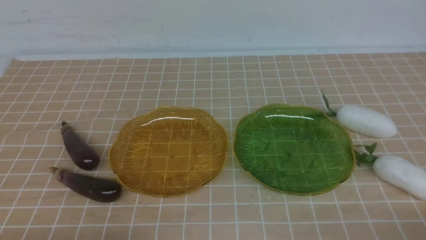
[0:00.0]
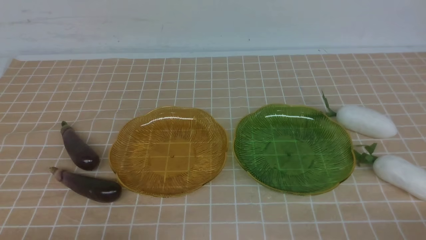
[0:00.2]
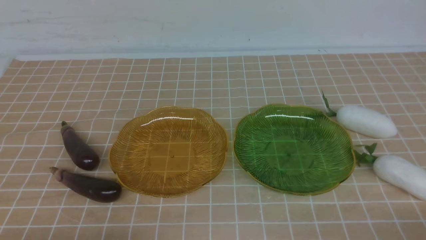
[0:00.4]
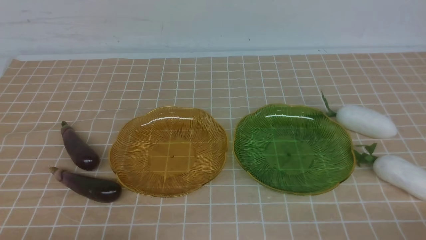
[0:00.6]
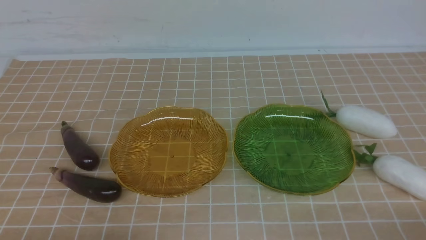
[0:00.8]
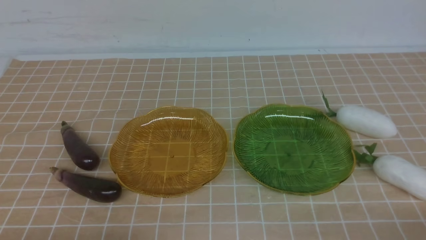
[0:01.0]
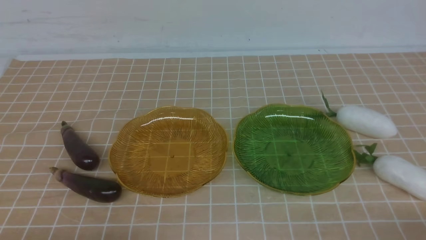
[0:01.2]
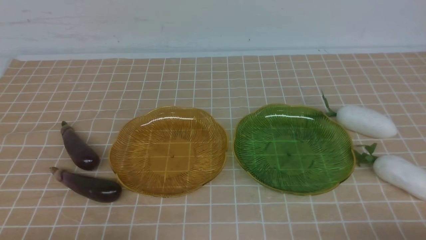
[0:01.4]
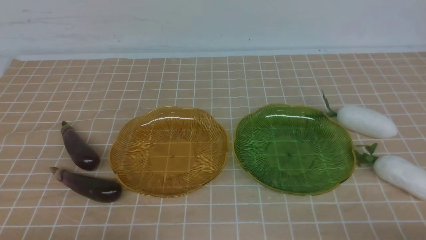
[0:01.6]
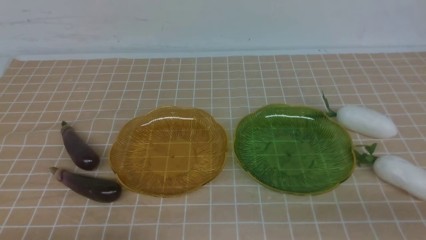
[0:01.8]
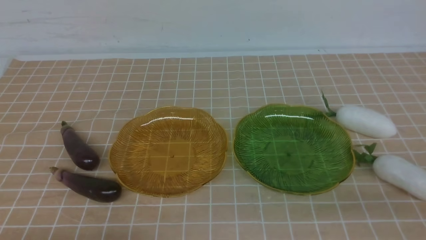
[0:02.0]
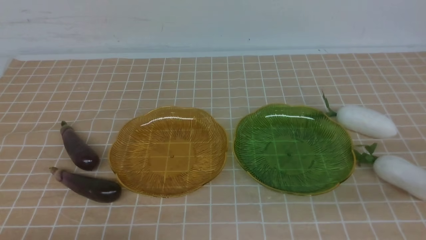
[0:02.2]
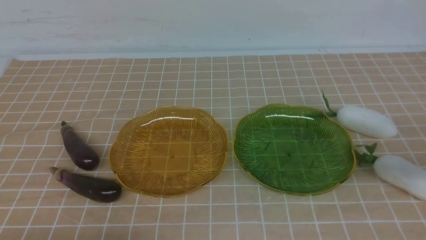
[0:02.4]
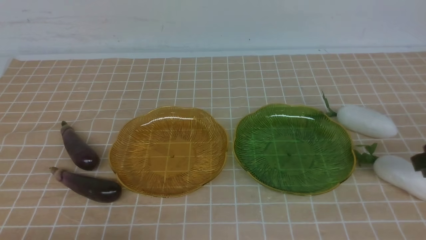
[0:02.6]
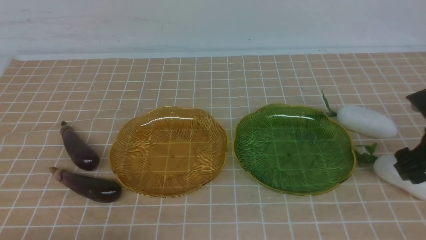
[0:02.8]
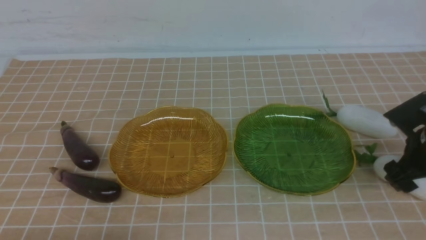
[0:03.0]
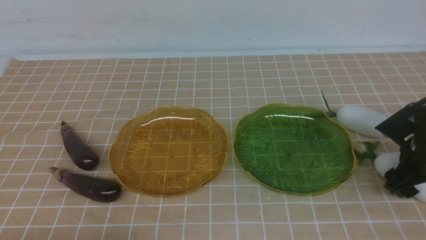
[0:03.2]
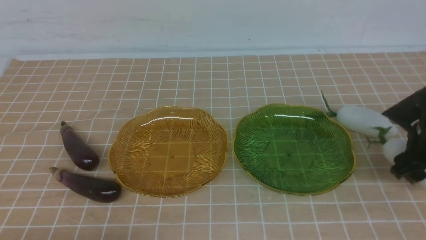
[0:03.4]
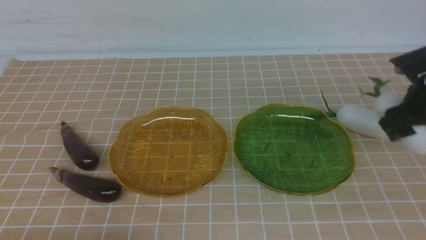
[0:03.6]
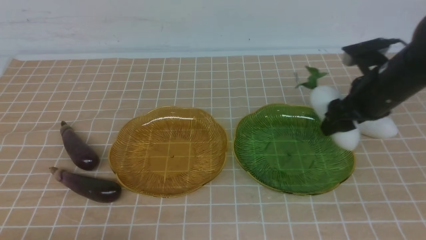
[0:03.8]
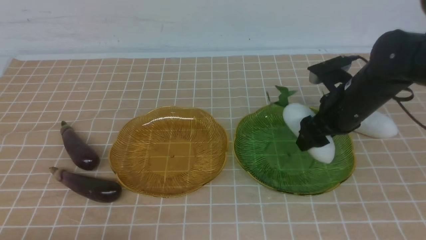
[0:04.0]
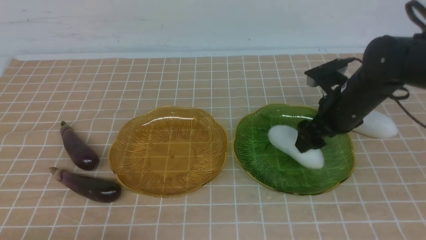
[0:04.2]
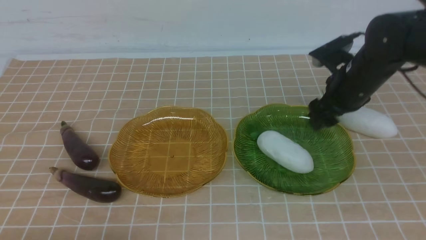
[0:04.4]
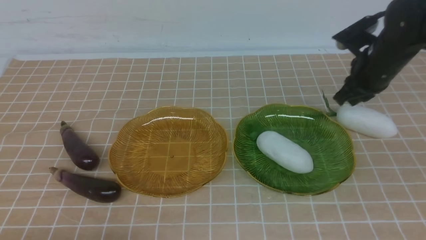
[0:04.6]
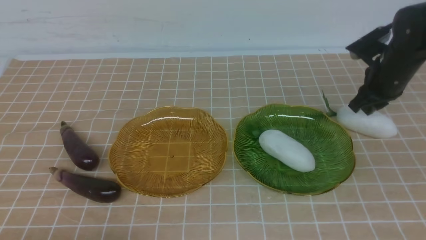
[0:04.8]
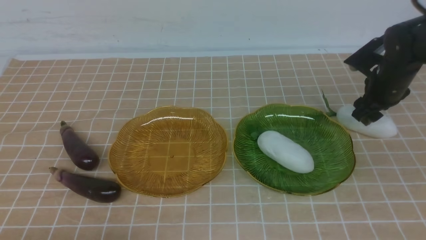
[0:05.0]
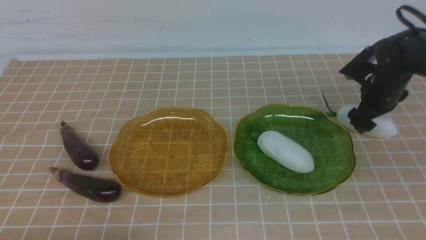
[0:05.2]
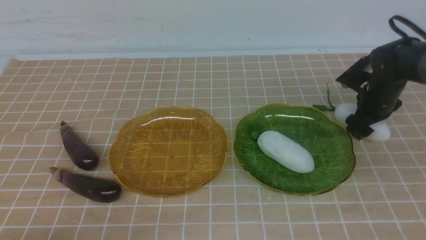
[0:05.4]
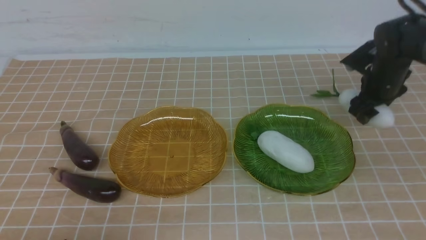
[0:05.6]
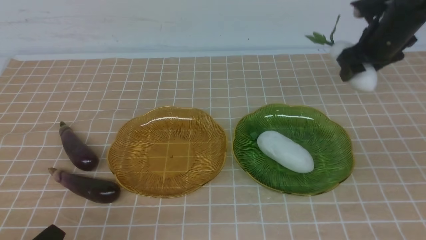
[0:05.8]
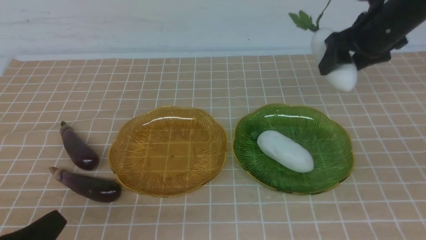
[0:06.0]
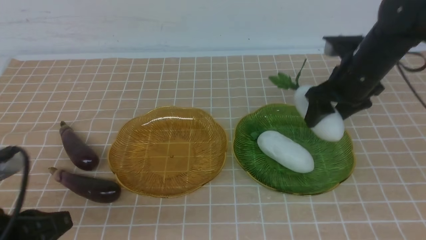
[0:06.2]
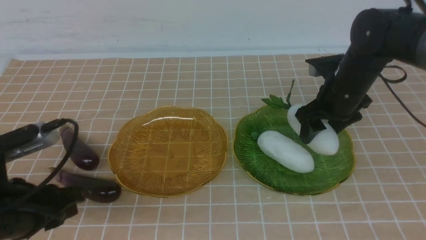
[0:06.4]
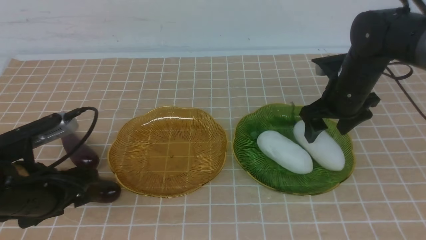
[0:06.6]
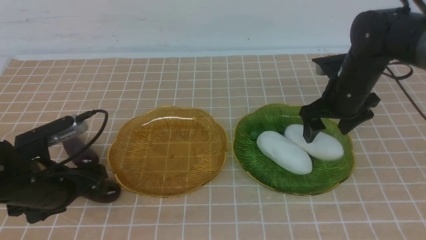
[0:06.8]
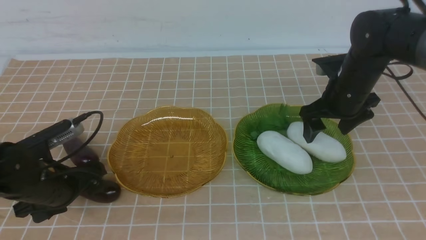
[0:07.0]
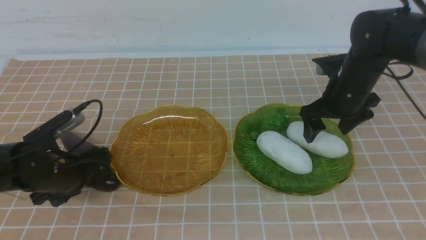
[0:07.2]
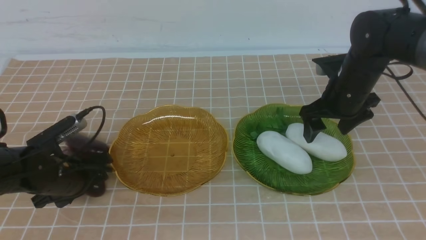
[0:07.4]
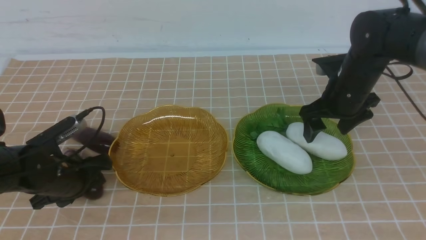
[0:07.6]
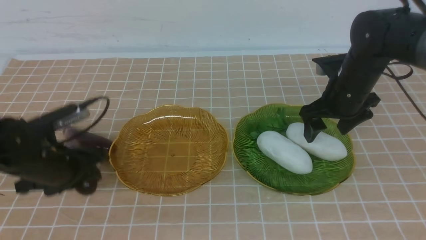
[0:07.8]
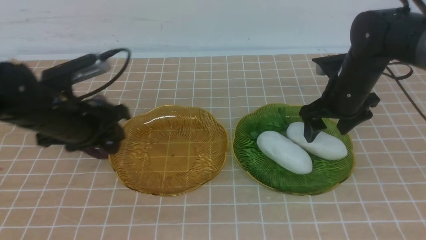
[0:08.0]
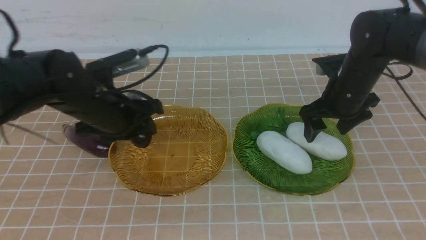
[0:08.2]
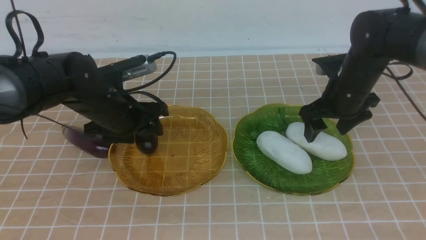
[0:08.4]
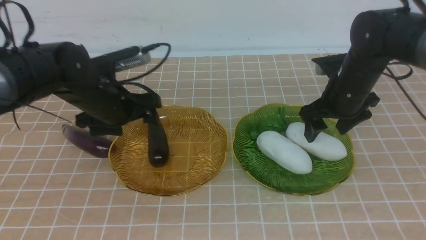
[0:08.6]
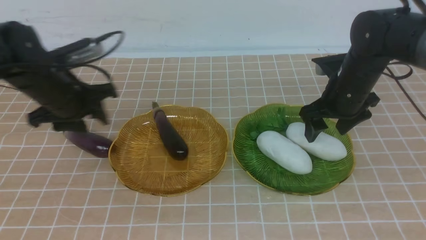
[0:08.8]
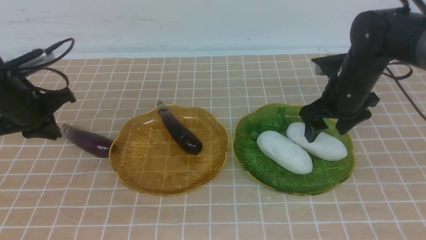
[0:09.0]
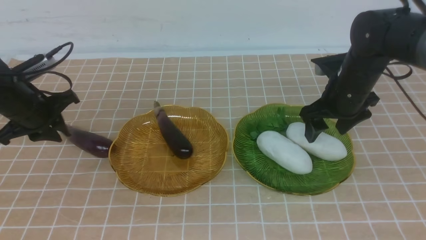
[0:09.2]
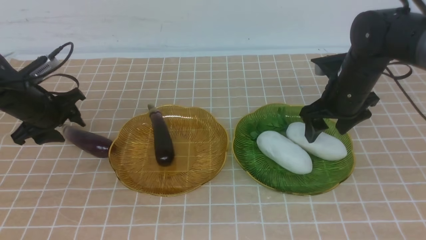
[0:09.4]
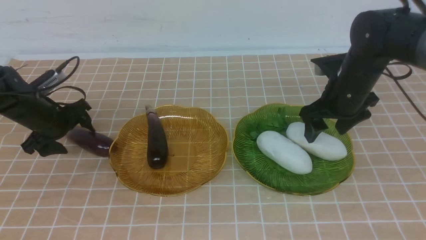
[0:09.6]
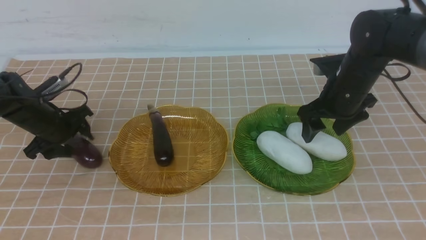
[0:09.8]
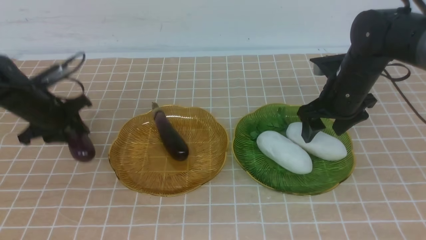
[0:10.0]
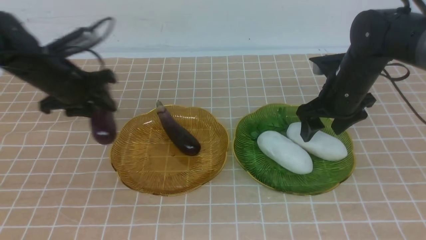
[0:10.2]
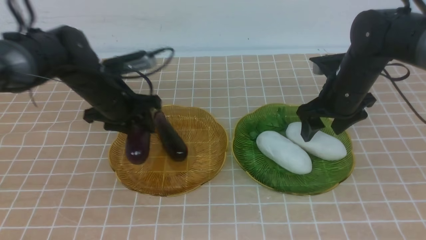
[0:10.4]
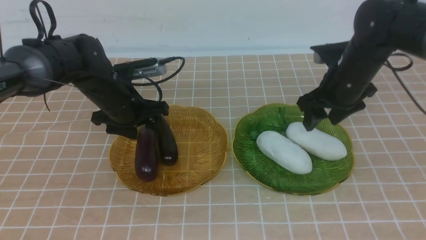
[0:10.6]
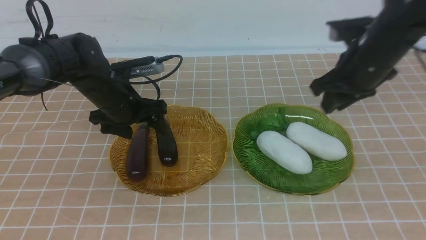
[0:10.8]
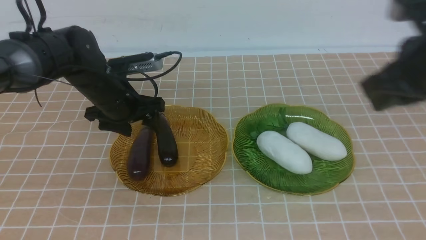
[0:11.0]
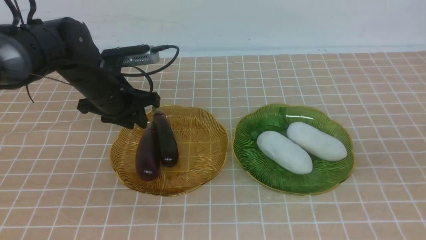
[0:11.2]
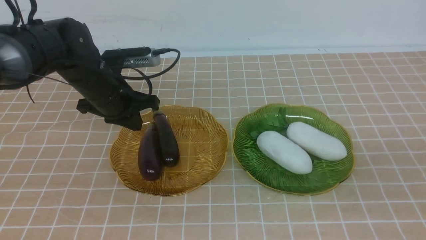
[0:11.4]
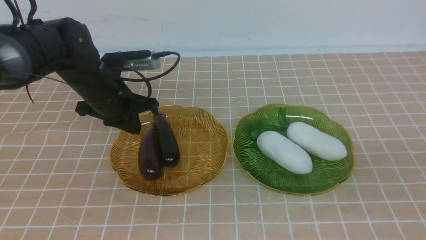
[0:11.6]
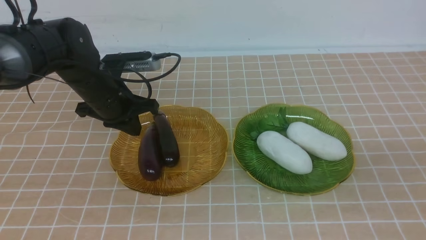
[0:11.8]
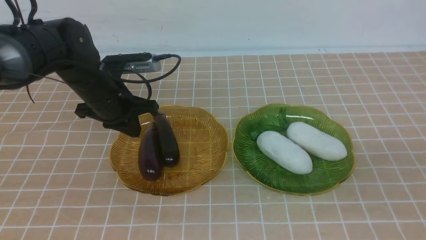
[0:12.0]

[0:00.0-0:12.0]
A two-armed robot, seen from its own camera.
Step, 0:00.0 to 0:06.8: use the right arm to grab a radish and put it into the right plate.
Step, 0:07.0 to 0:08.6: use the left arm to grab an eggplant and put it into the left plate.
Step, 0:09.0 to 0:10.8: use the left arm to grab an eggplant and put it into the left plate.
0:01.6 to 0:03.0: The right gripper goes about 25 cm forward, and opens.
0:03.0 to 0:04.4: The right gripper heads to the left, forward and upward, covering approximately 15 cm.
0:04.4 to 0:06.0: Both grippers move upward, approximately 5 cm.
0:06.0 to 0:07.6: The right gripper travels downward by approximately 5 cm, while the left gripper heads forward, covering roughly 20 cm, and opens up.
0:07.6 to 0:09.0: The left gripper heads forward, upward and to the left, covering about 10 cm.
0:09.0 to 0:10.4: The left gripper heads to the right, covering roughly 10 cm, and opens.
0:10.4 to 0:12.0: The right gripper moves backward, about 30 cm, and closes its fingers. Meanwhile the left gripper closes.

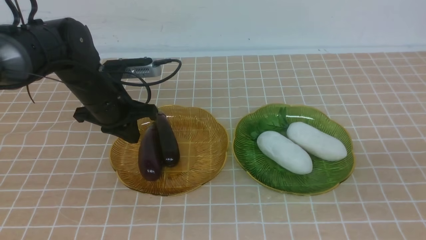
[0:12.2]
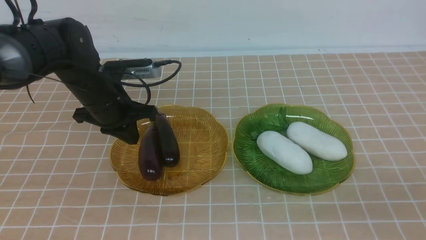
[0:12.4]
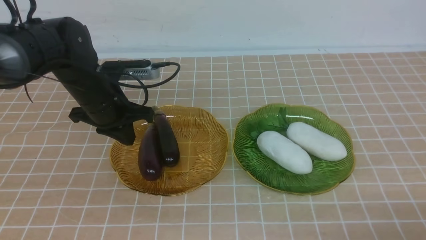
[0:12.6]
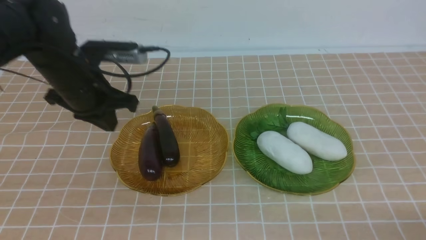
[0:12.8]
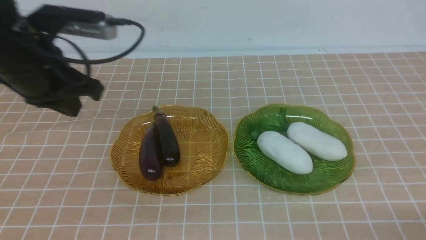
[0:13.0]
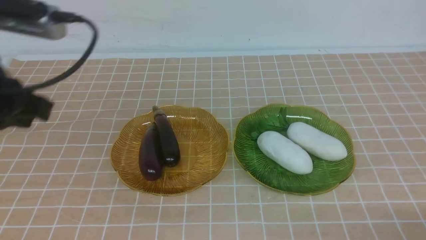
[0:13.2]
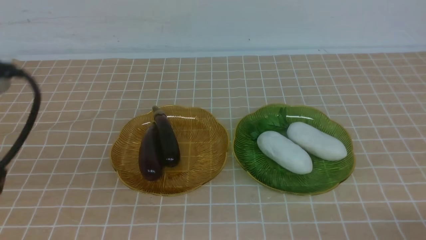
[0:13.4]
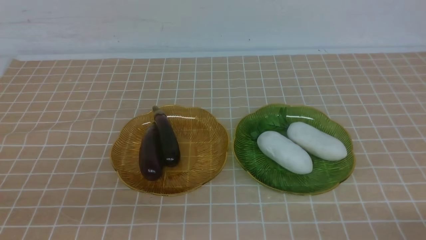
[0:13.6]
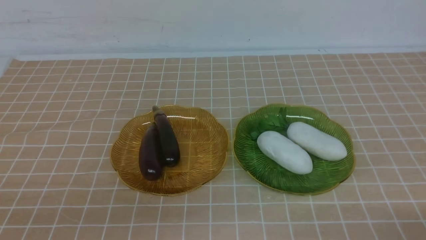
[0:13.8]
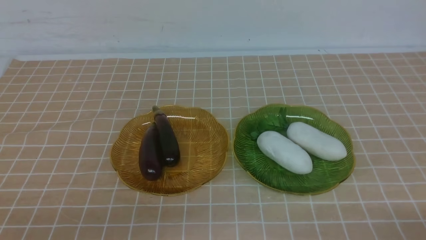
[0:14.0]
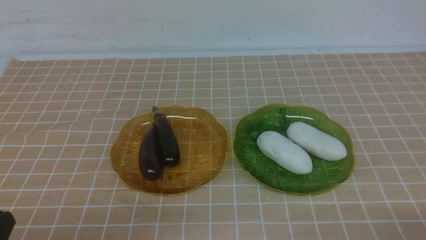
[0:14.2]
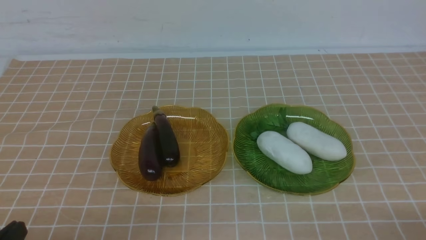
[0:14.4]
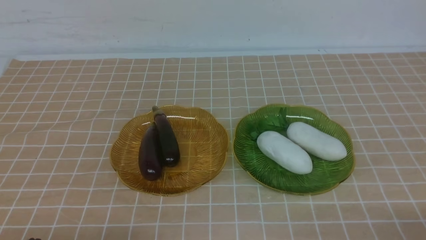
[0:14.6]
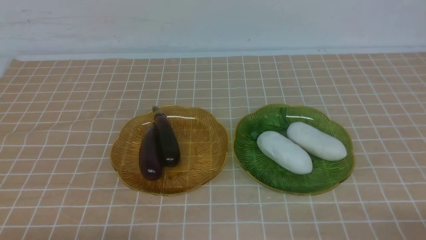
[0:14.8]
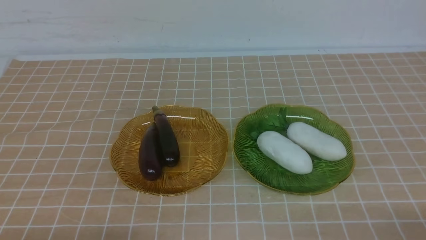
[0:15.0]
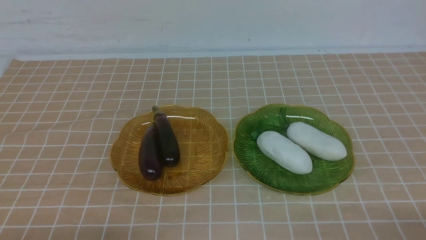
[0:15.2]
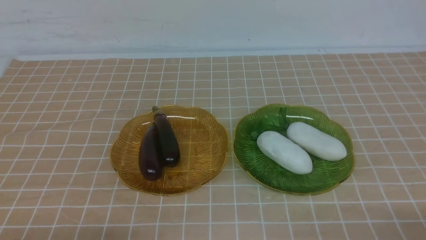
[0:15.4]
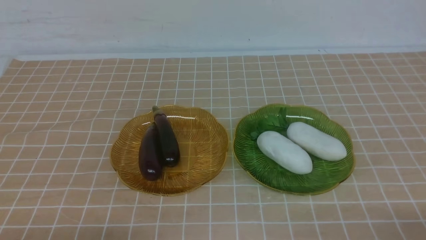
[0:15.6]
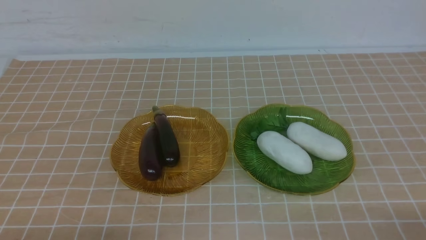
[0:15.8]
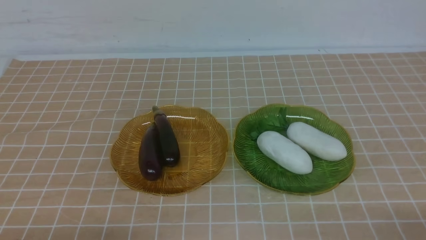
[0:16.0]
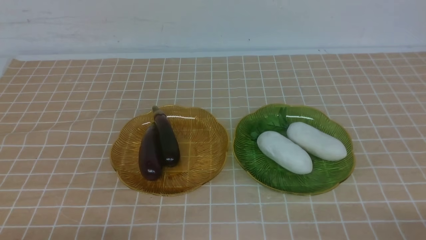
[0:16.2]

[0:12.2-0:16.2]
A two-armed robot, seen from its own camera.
0:12.2 to 0:13.6: The right gripper moves downward, approximately 10 cm. Meanwhile the left gripper heads backward, covering approximately 35 cm.
